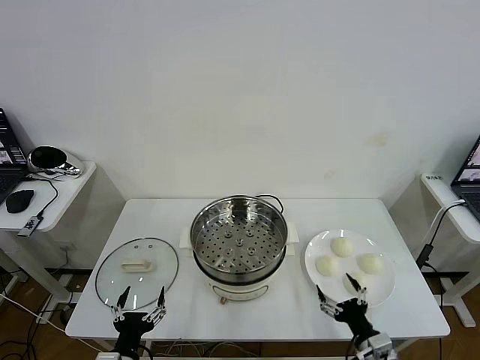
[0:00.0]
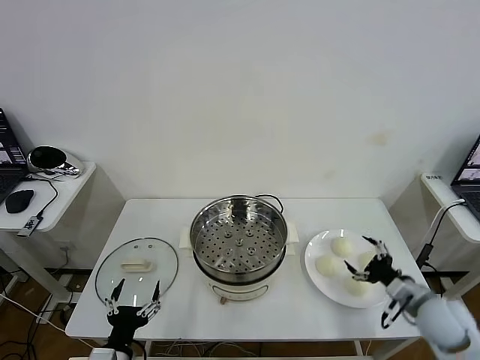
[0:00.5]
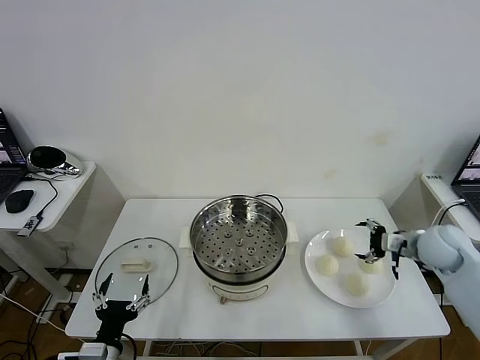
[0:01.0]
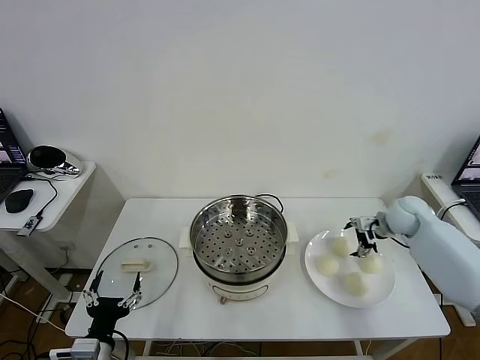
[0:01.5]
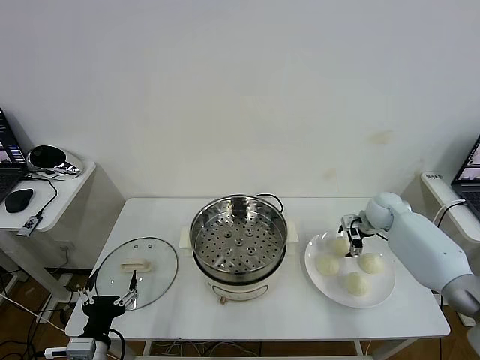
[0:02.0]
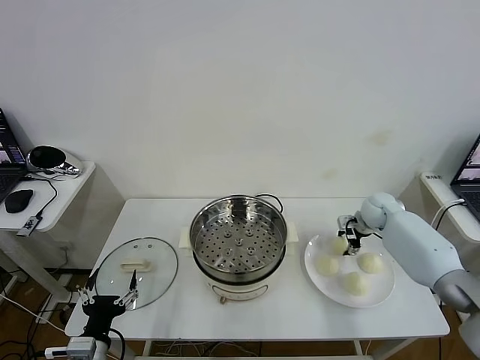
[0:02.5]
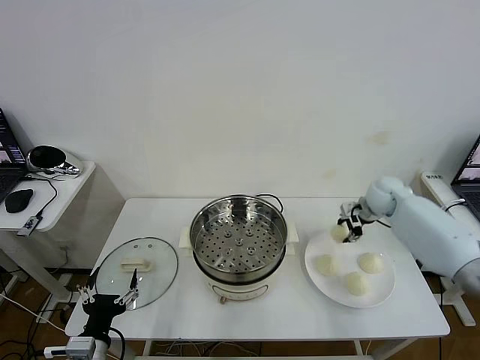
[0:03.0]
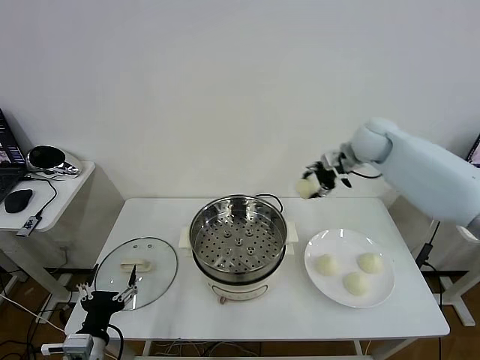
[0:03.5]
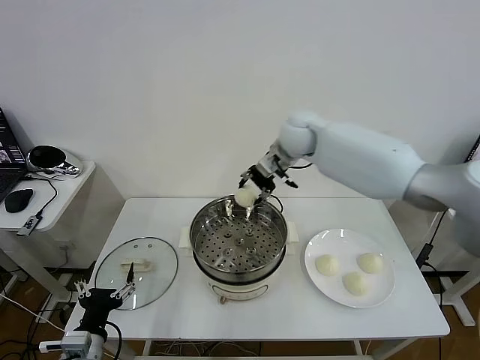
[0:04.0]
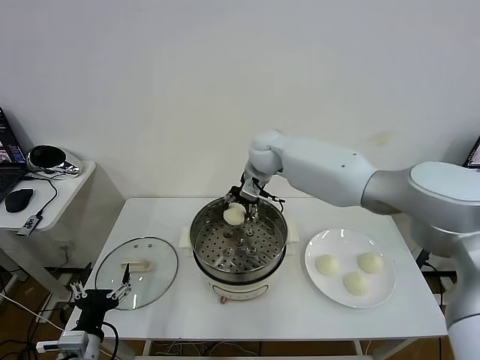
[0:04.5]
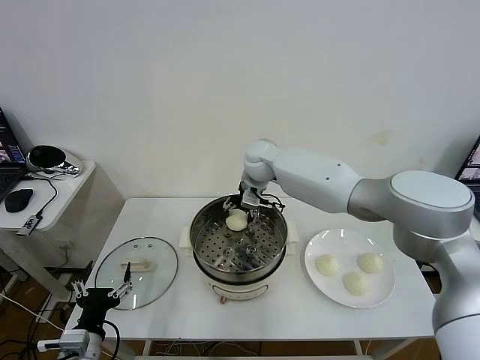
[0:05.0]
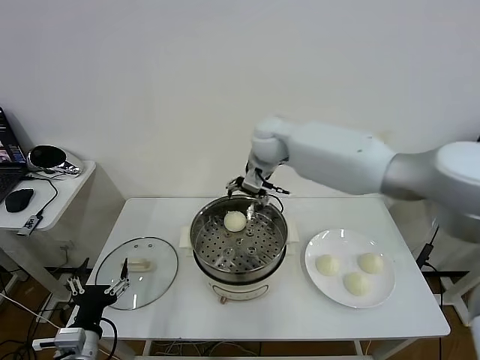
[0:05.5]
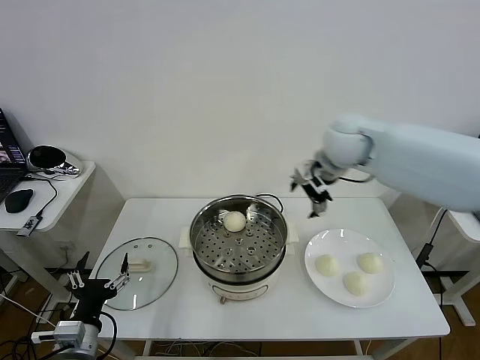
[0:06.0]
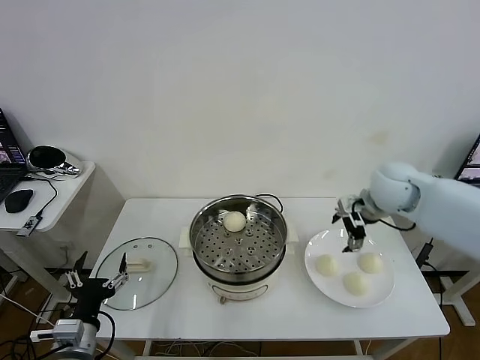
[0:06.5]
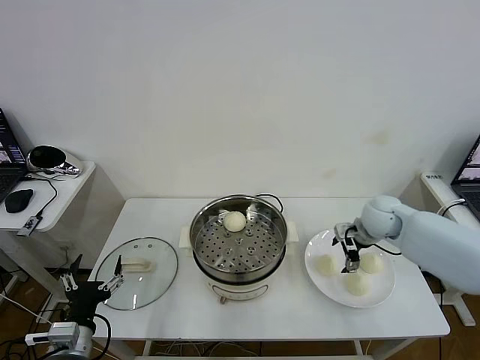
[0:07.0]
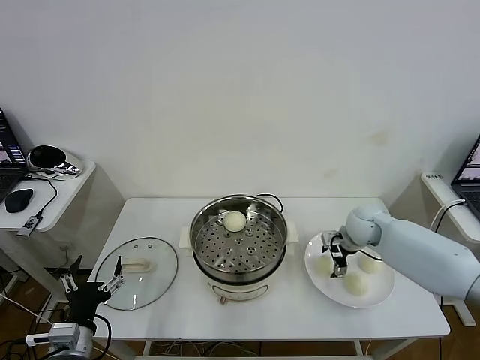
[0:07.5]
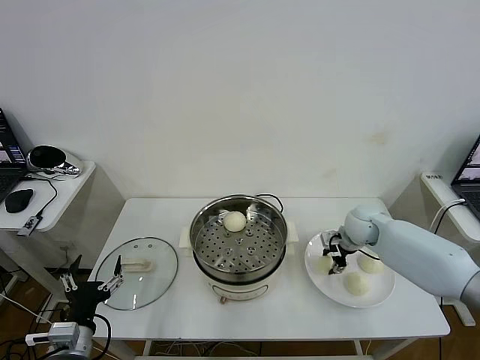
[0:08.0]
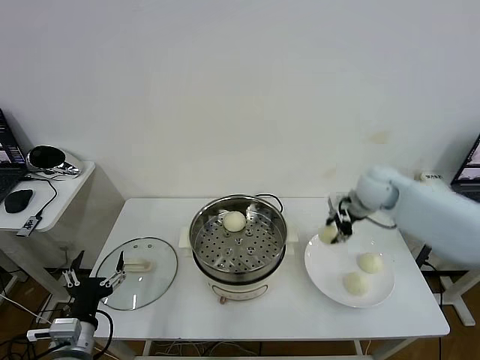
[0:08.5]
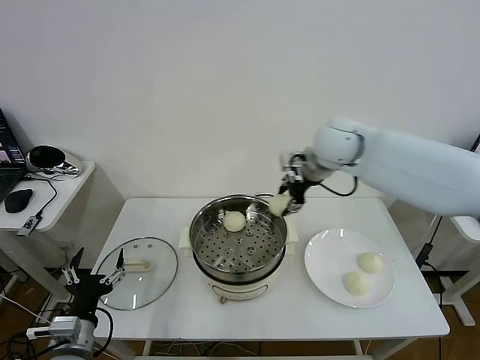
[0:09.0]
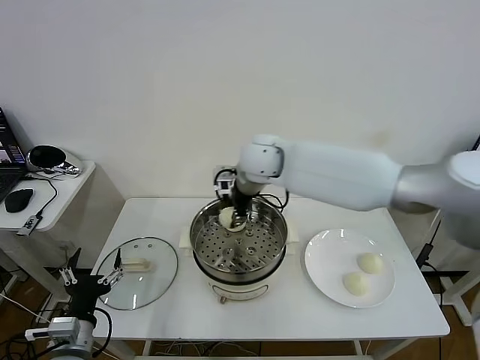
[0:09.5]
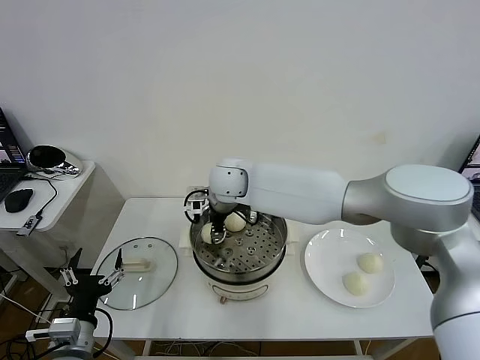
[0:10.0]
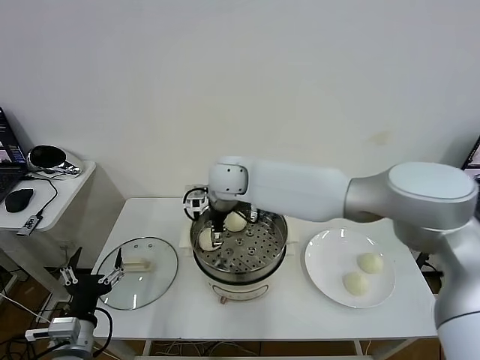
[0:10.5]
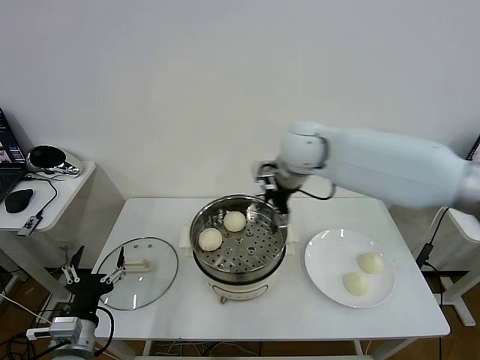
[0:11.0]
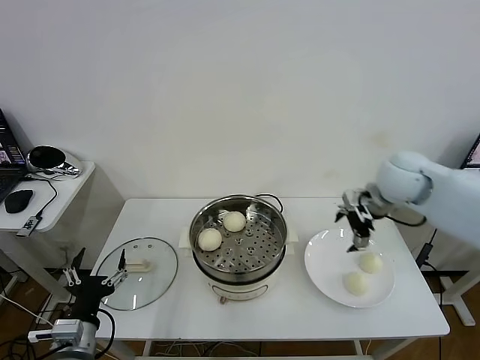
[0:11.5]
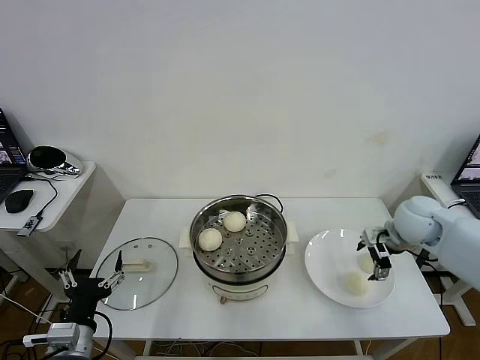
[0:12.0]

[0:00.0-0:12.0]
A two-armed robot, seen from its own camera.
Task of the whole recording: take steamed baozi put them in steamer then cover it.
Step, 0:00.0 to 0:02.5: Grasp the baozi in the plate with right gripper.
Step, 0:03.0 to 0:05.0: Place the baozi on the steamer with right gripper.
Step, 0:05.5 to 0:08.0: Grasp the baozi in the plate with right gripper.
Step, 0:08.5 to 0:10.0: Place the baozi on the steamer with right gripper.
0:02.0 to 0:04.0: The right gripper goes some 35 cm to the left and upward, and closes.
0:04.0 to 0:06.0: The right gripper heads to the right and backward, covering roughly 15 cm, and opens.
0:06.0 to 0:08.0: The right gripper shifts about 20 cm downward, and closes.
0:08.0 to 0:10.0: The right gripper heads to the left, covering about 35 cm.
0:10.0 to 0:12.0: The right gripper moves to the right, approximately 40 cm, and opens up.

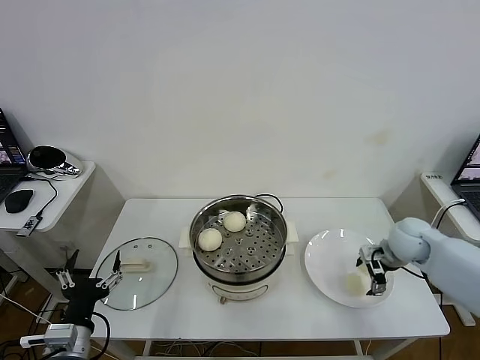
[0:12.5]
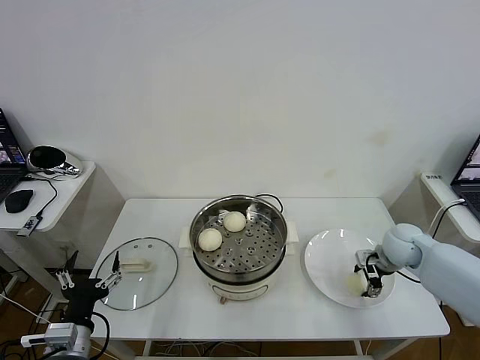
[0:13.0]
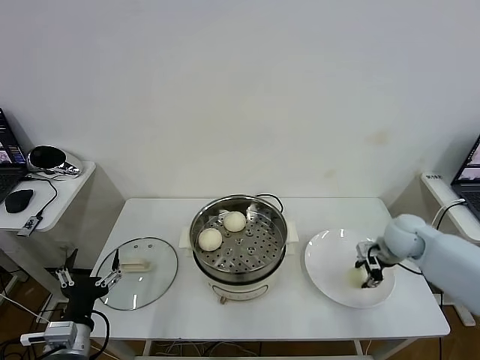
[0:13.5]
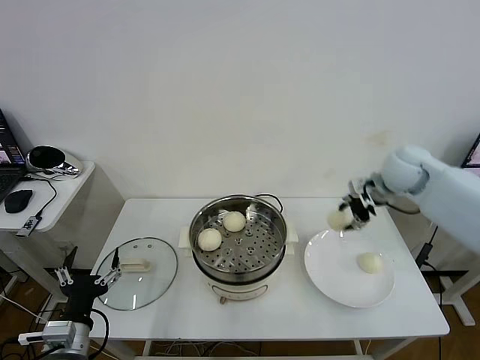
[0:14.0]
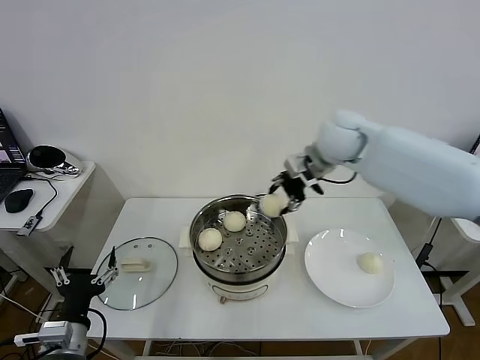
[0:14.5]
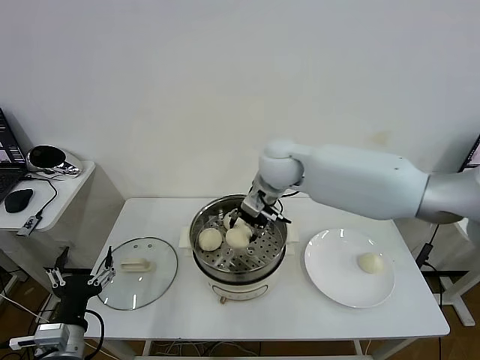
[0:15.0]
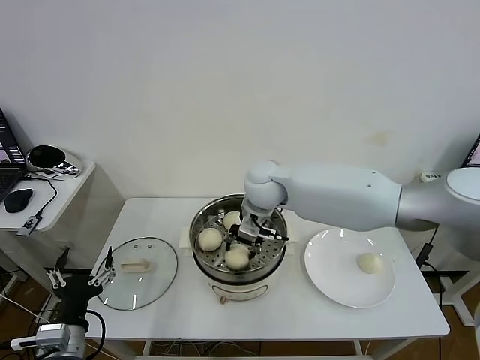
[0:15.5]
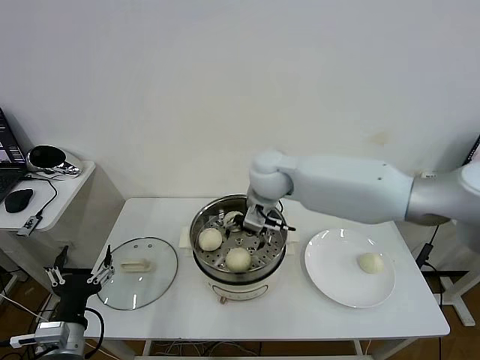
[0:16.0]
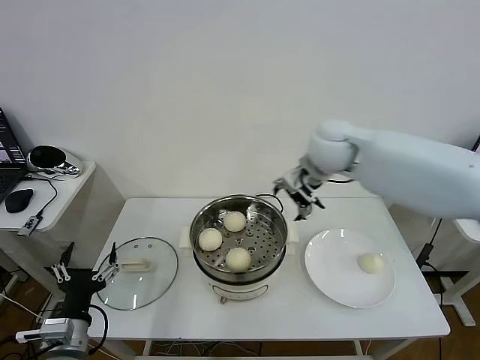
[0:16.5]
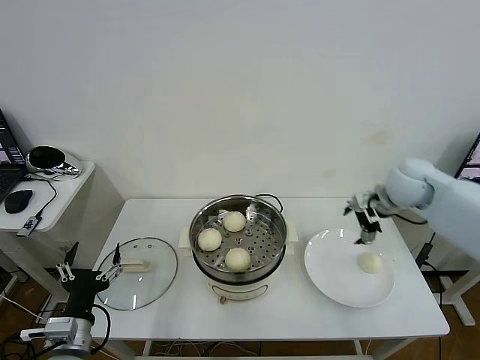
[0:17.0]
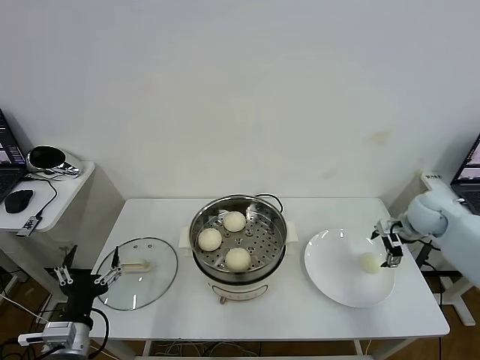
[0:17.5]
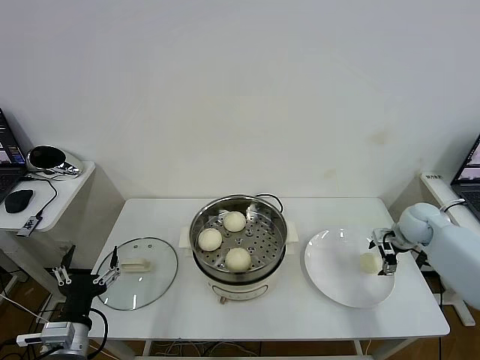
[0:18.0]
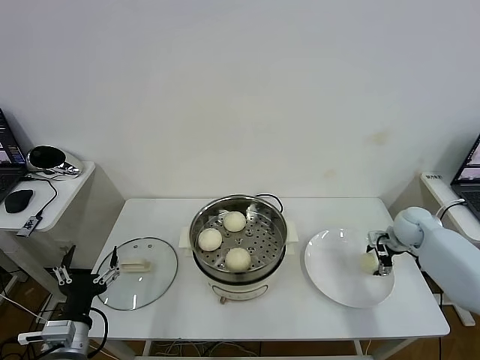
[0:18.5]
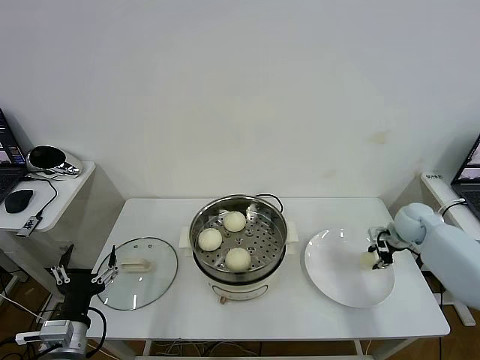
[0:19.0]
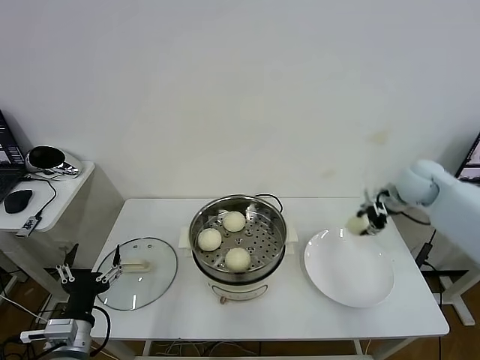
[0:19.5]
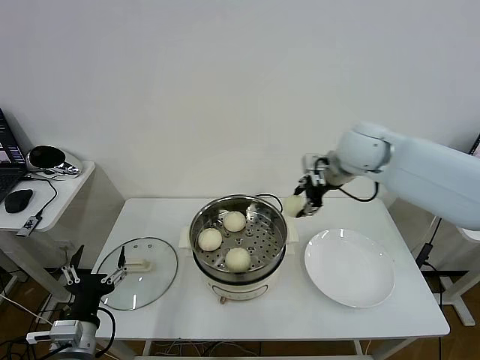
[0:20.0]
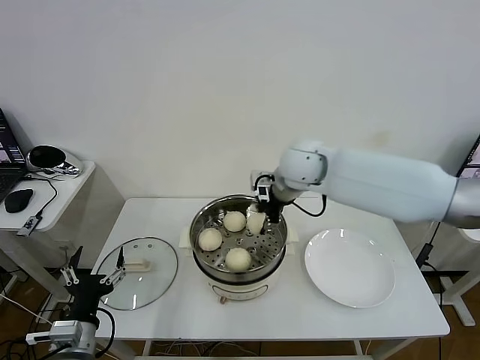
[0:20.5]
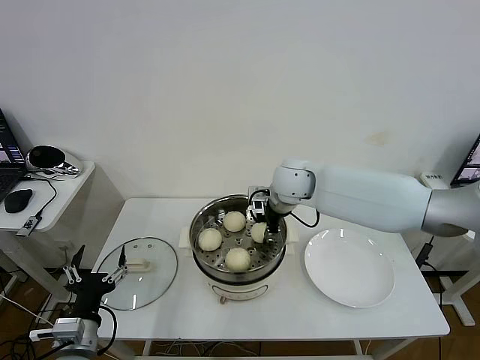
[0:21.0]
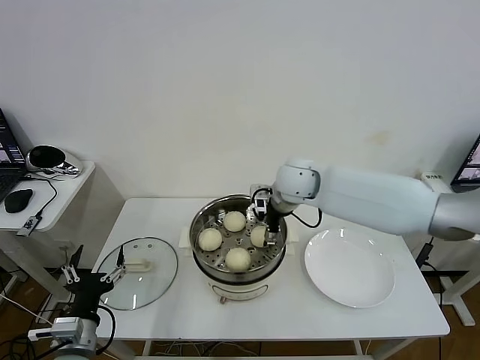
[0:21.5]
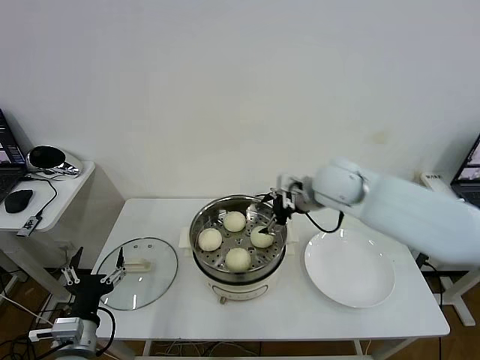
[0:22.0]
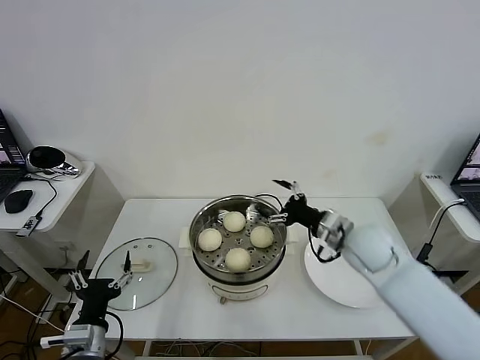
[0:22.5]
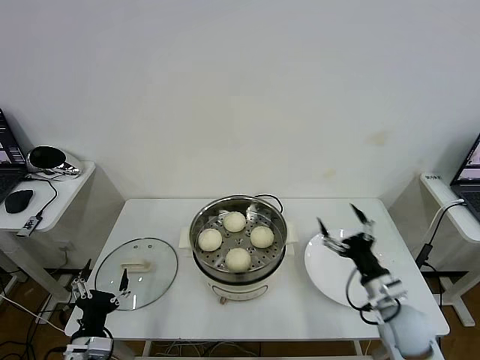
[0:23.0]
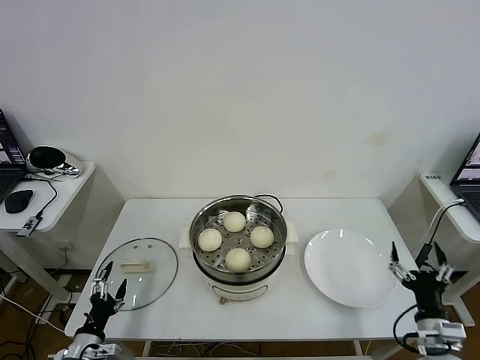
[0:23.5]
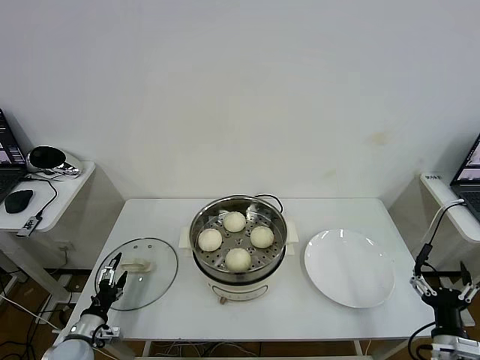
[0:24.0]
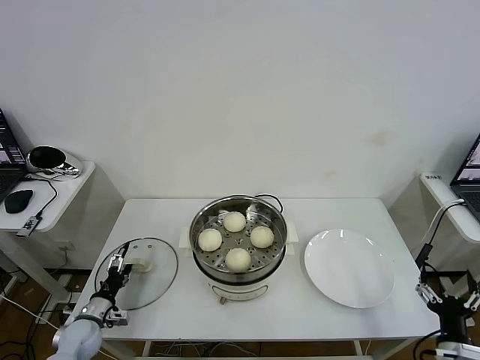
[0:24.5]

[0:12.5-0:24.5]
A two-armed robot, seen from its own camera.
Task of the whole recording: take steamed baozi put them in steamer then cover it.
Step, 0:13.5 to 0:15.5: Place the baozi on the steamer with right gripper.
Step, 0:16.0 to 0:18.5: Grasp the baozi in the plate with right gripper.
Step, 0:19.5 to 0:21.5: Place the baozi on the steamer with right gripper.
0:12.5 to 0:14.5: The right gripper moves upward and to the left, roughly 30 cm, and closes.
0:14.5 to 0:16.5: The right gripper moves roughly 15 cm to the left and comes back, and opens its fingers.
0:16.5 to 0:18.5: The right gripper moves to the right and downward, some 35 cm.
0:18.5 to 0:20.5: The right gripper moves to the left and upward, roughly 40 cm, and closes its fingers.
0:20.5 to 0:22.5: The right gripper is displaced to the right, downward and backward by approximately 20 cm, and opens up.
0:22.5 to 0:24.5: The left gripper travels downward, forward and to the left by some 20 cm, while the right gripper goes approximately 35 cm backward, to the right and downward.

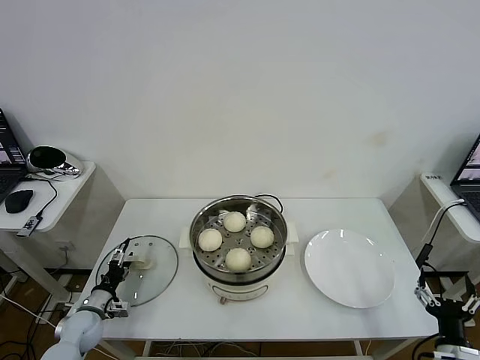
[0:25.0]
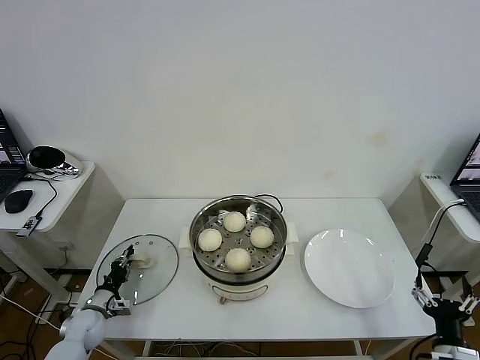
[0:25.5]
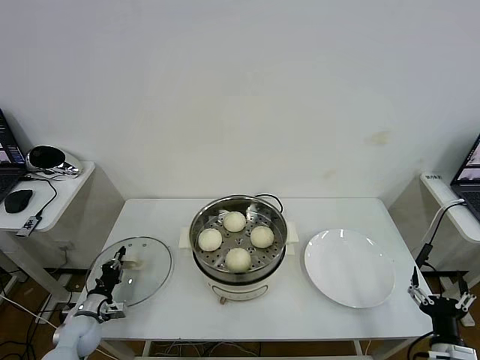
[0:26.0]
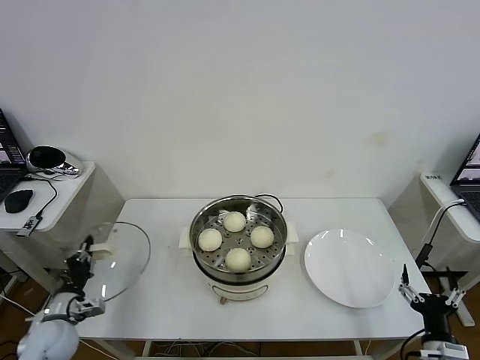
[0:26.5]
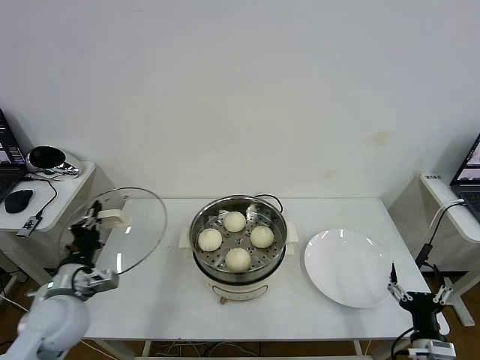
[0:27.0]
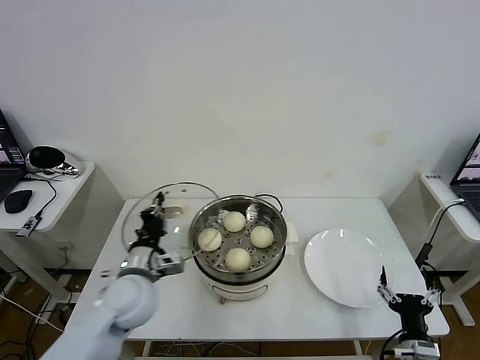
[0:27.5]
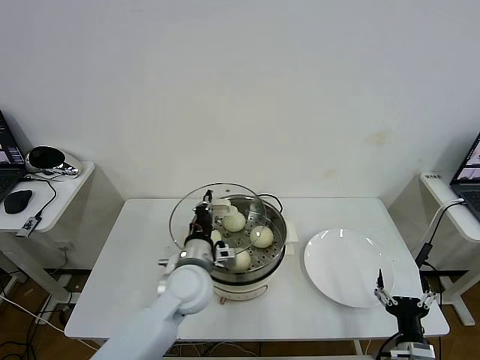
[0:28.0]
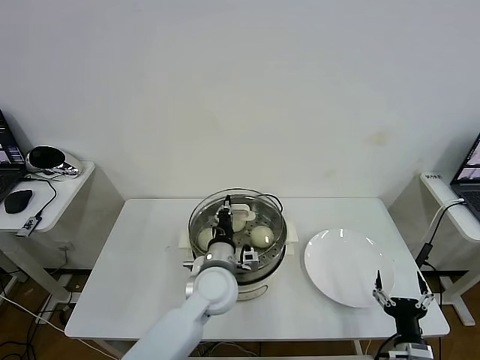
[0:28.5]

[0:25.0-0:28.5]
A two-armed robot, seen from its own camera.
Task of the whole recording: take steamed baozi put them in steamer then cover it.
0:25.0 to 0:27.0: The left gripper travels upward by about 20 cm, and closes.
0:27.0 to 0:28.5: The left gripper travels to the right by some 30 cm.
